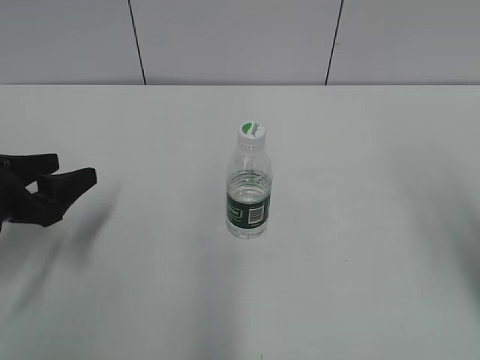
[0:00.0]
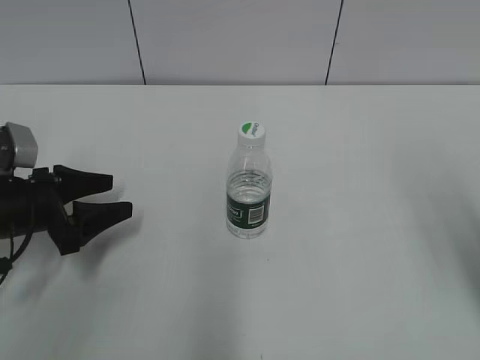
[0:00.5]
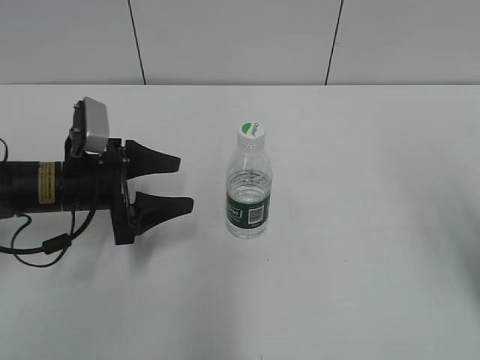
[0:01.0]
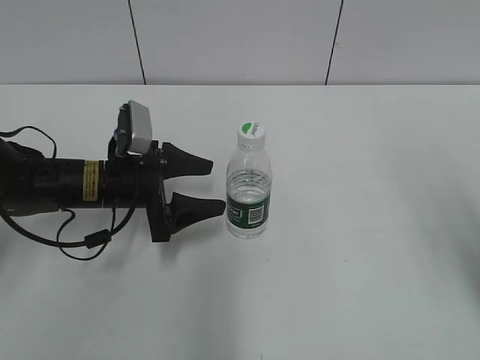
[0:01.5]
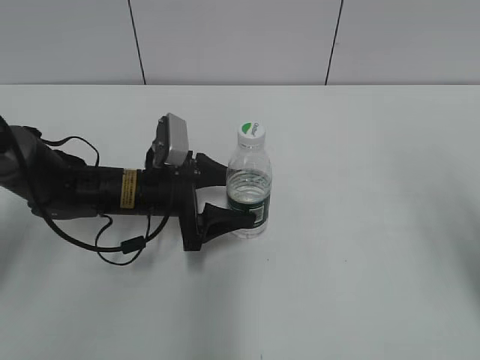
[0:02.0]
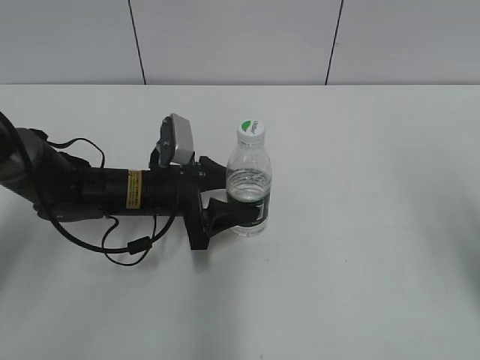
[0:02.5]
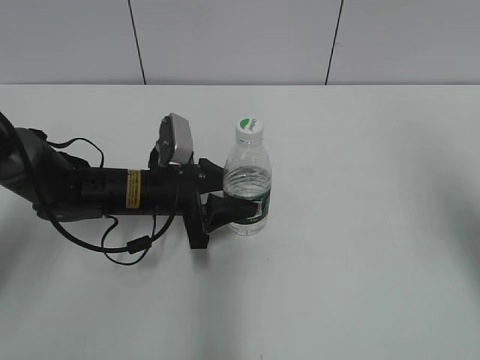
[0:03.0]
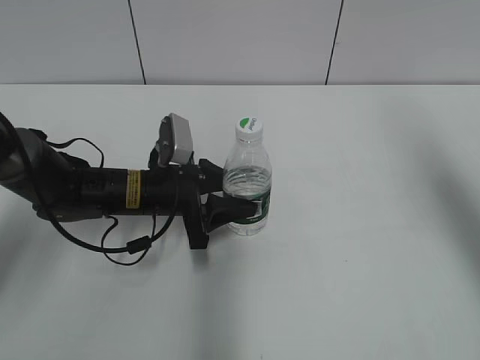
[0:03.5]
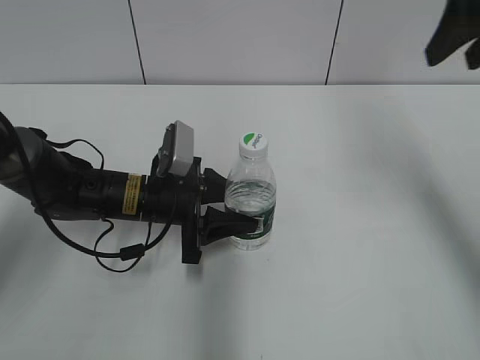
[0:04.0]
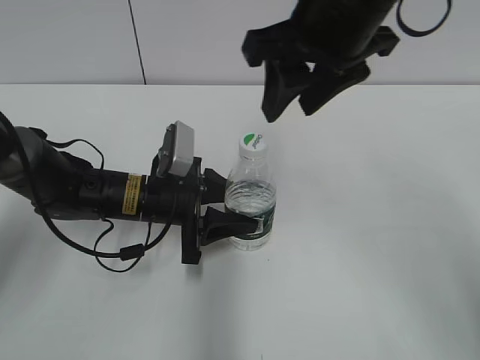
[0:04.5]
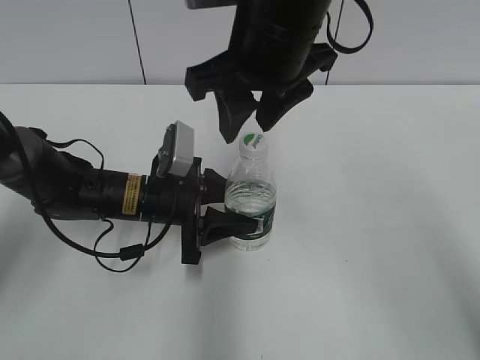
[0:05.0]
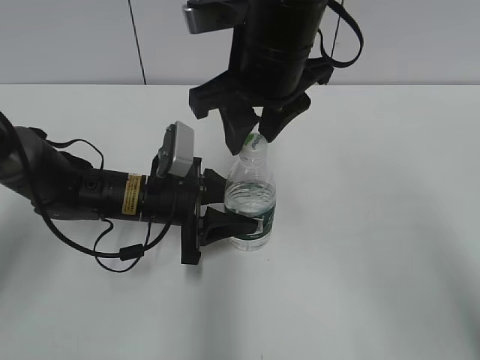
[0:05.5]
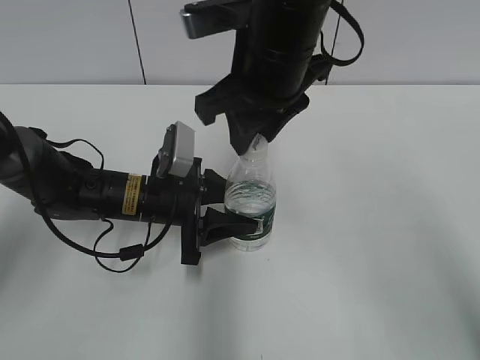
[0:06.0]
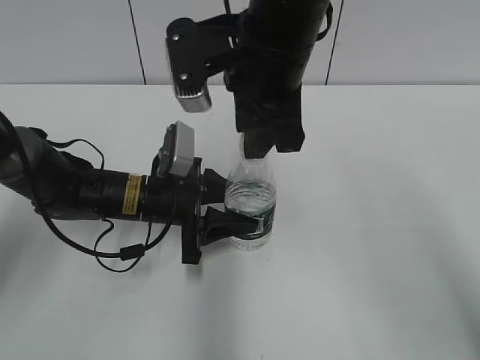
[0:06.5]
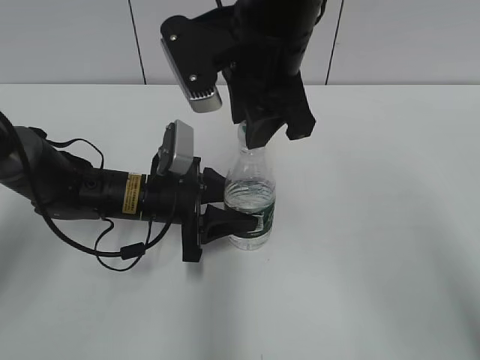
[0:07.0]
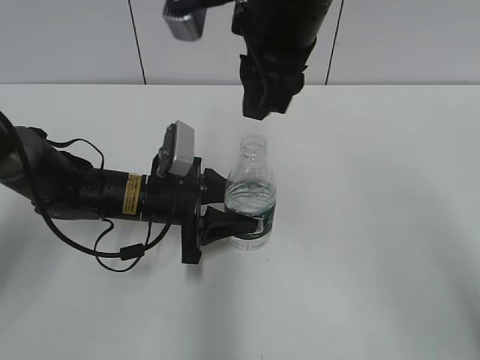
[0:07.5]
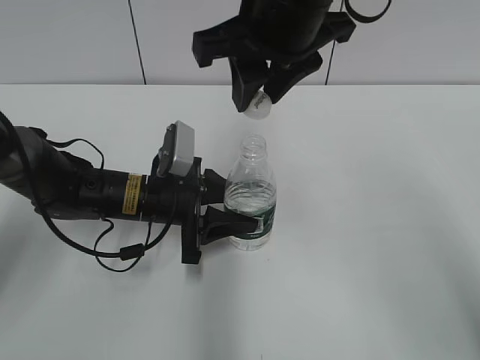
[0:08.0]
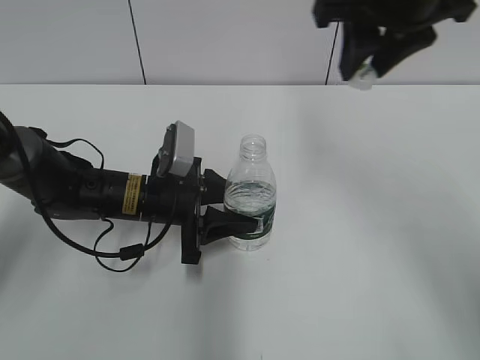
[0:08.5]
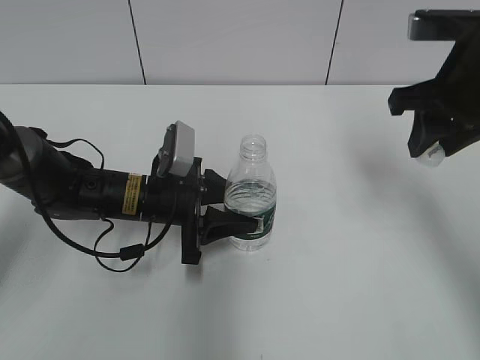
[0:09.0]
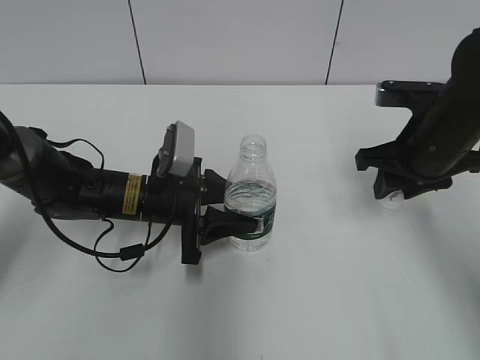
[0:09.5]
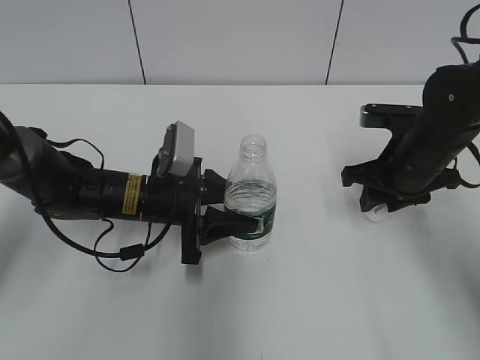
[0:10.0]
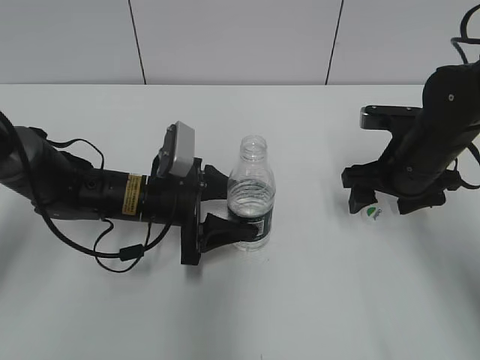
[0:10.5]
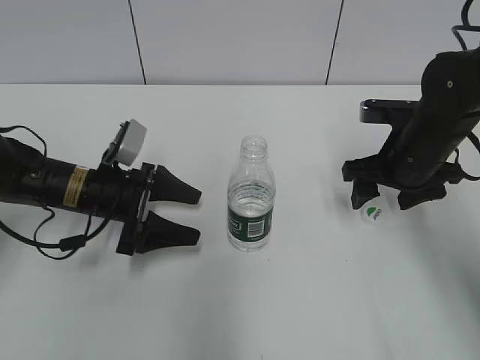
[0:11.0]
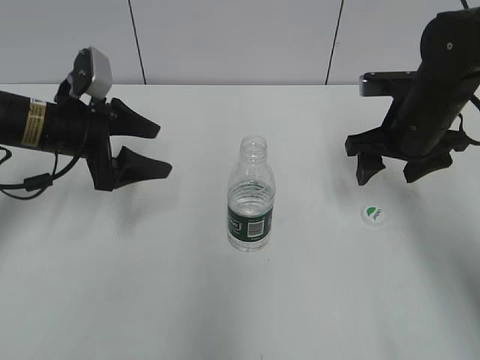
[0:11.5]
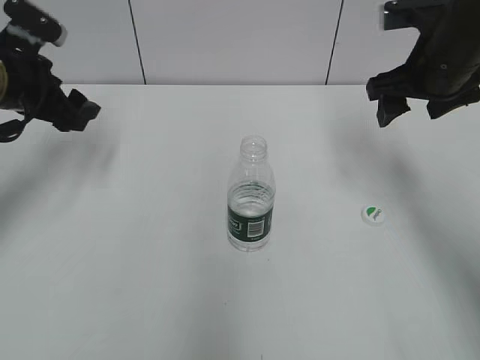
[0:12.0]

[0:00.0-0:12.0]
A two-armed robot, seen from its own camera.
Step, 0:00.0 to 0:04.0: Grasp the bottle and move it to the center of the table with the left gripper.
Step, 0:04.5 to 0:08.0: Unscrew the bottle cap with the right gripper while holding the bottle with the left gripper.
Step, 0:08.5 to 0:10.0: Place the bottle cap on the table with the right gripper.
Step, 0:10.5 to 0:11.0: Place the bottle on the table with the left gripper.
0:00.0 to 0:02.0: The left gripper is displaced to the right and forward by roughly 20 cm.
0:02.0 to 0:04.0: The left gripper closes its fingers. Meanwhile the right gripper goes approximately 15 cm forward, and closes up.
0:04.0 to 0:06.0: The right gripper shifts approximately 25 cm to the left and downward.
0:08.0 to 0:10.0: The right gripper travels downward and to the right by about 25 cm.
0:10.0 to 0:12.0: The left gripper moves to the left and upward, some 20 cm, and opens its fingers. Meanwhile the right gripper travels upward by roughly 10 cm, and opens up.

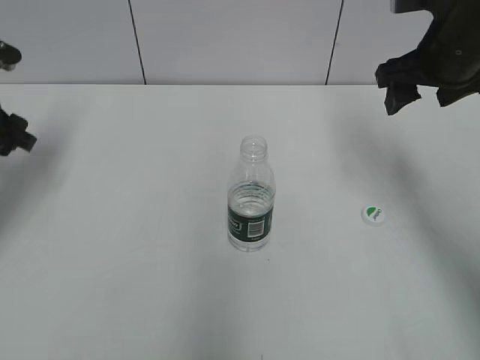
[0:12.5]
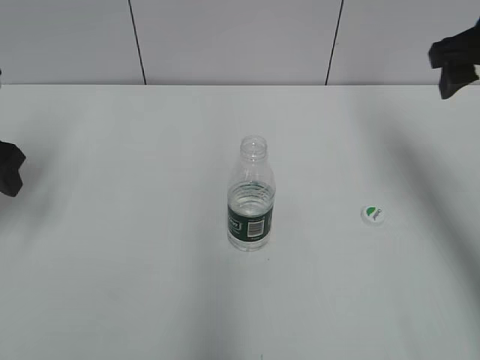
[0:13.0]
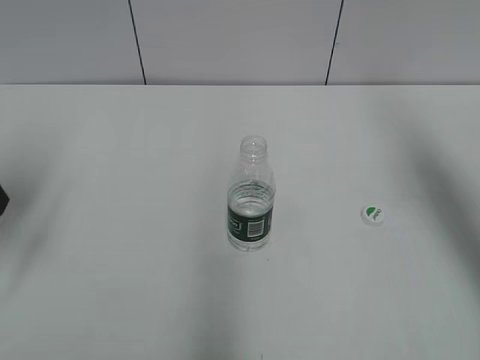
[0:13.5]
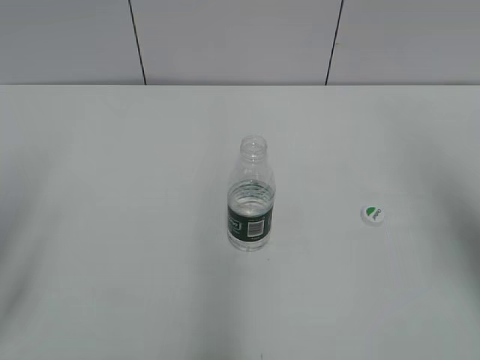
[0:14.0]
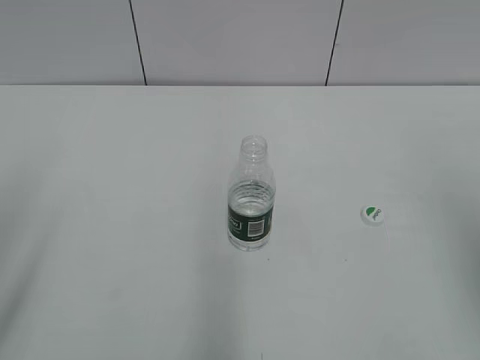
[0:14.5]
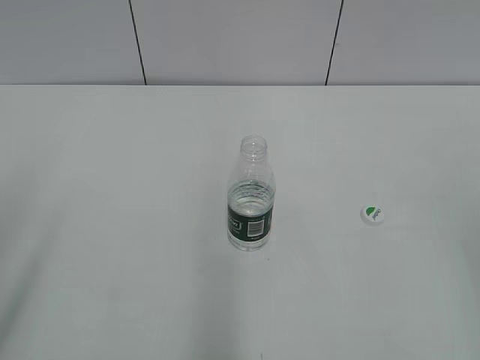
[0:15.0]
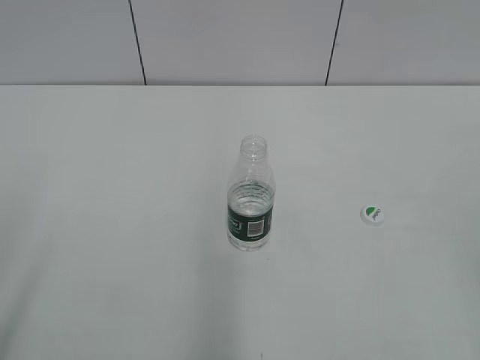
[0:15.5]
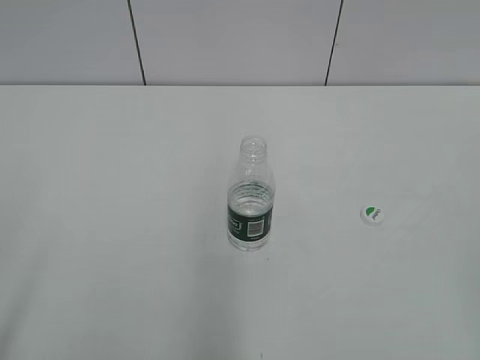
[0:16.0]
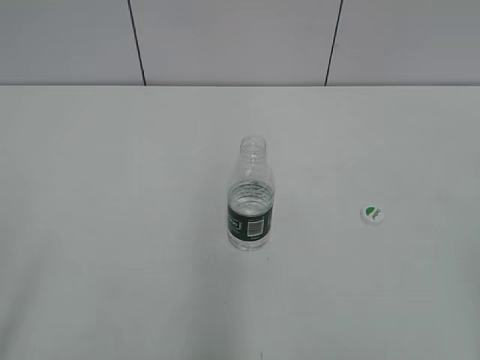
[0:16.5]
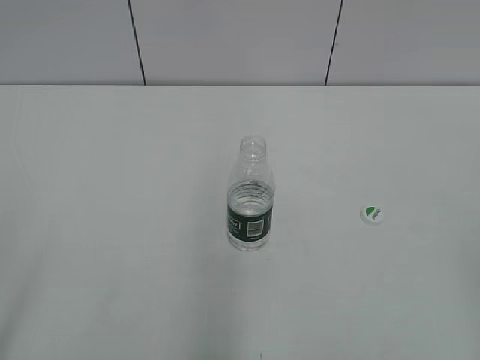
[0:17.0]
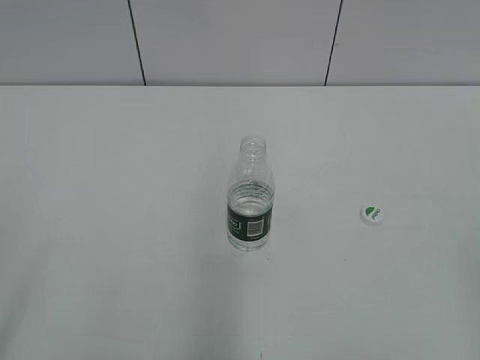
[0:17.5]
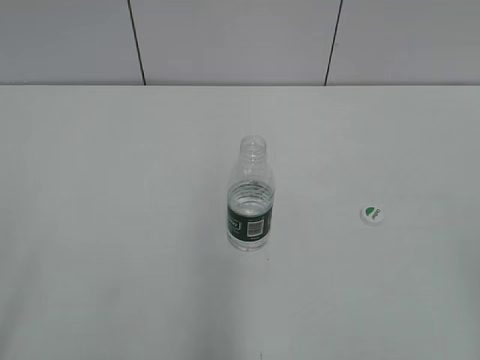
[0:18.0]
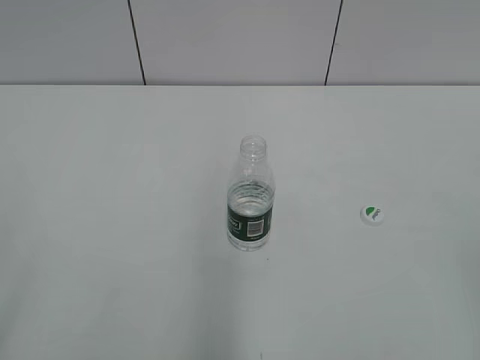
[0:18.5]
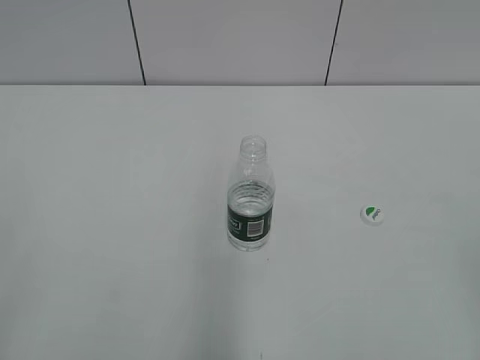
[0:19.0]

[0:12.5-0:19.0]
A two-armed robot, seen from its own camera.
0:12.5 to 0:14.5: The two grippers go some 25 cm backward.
